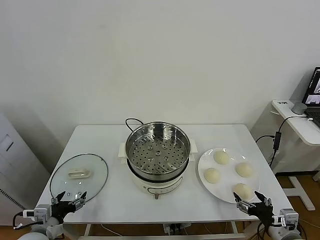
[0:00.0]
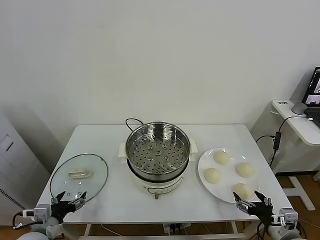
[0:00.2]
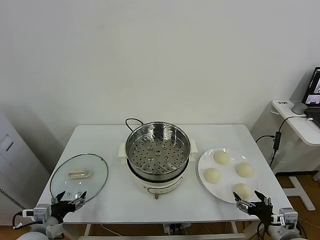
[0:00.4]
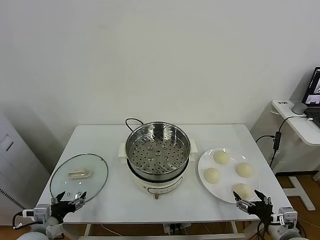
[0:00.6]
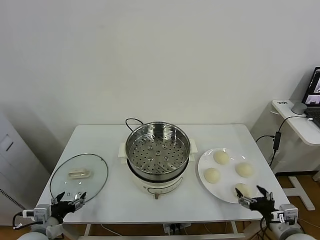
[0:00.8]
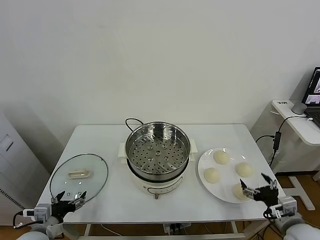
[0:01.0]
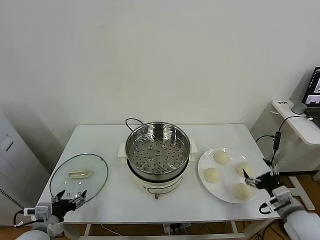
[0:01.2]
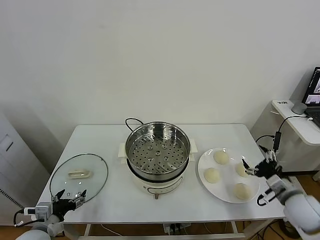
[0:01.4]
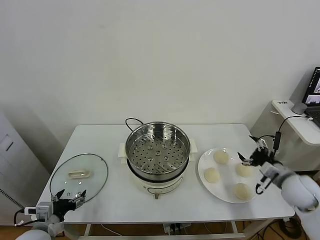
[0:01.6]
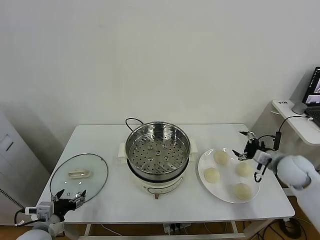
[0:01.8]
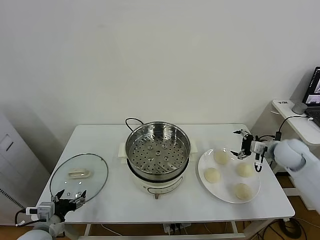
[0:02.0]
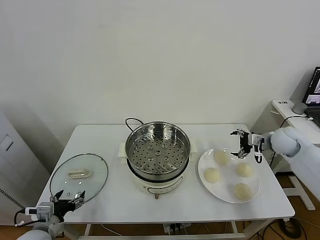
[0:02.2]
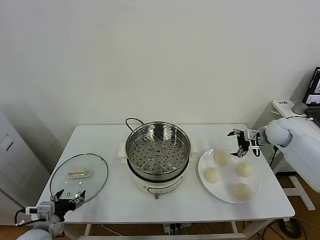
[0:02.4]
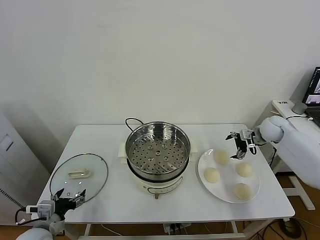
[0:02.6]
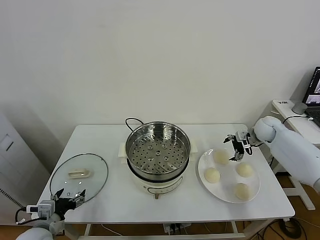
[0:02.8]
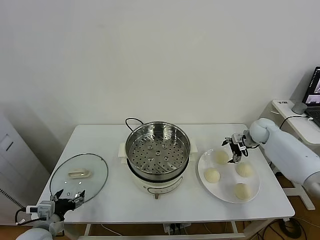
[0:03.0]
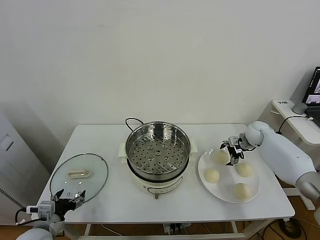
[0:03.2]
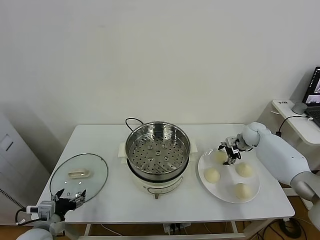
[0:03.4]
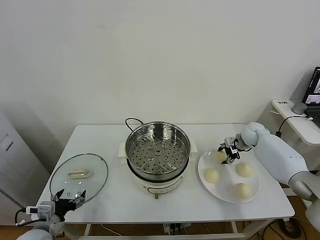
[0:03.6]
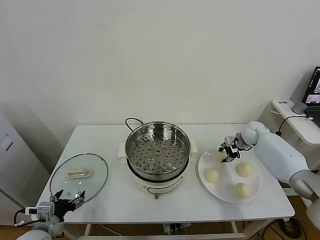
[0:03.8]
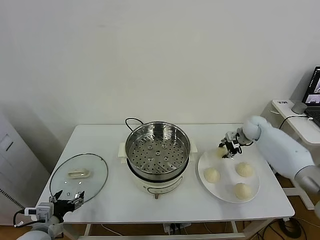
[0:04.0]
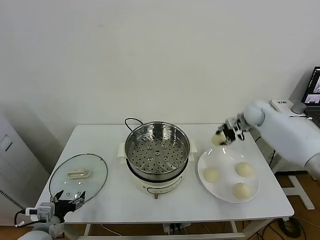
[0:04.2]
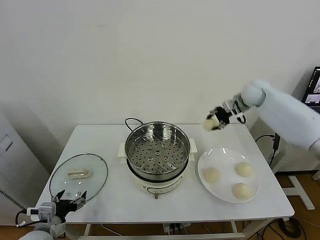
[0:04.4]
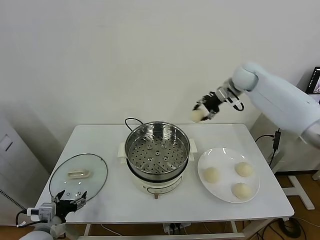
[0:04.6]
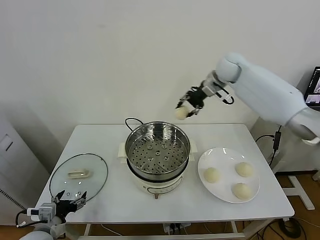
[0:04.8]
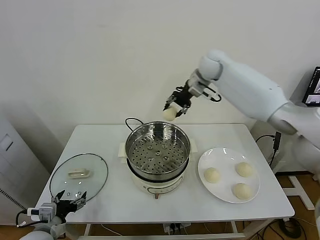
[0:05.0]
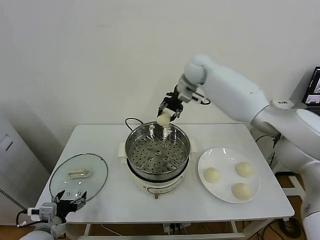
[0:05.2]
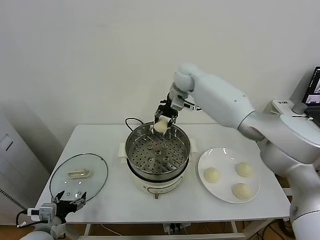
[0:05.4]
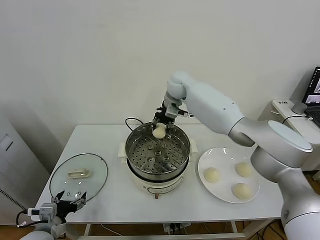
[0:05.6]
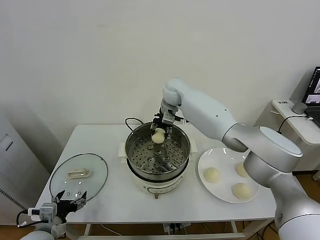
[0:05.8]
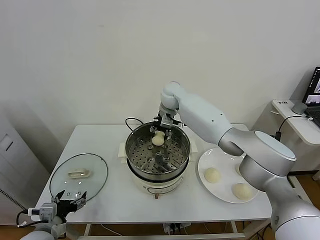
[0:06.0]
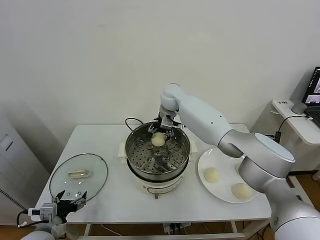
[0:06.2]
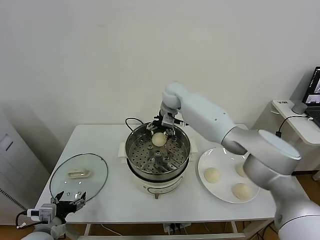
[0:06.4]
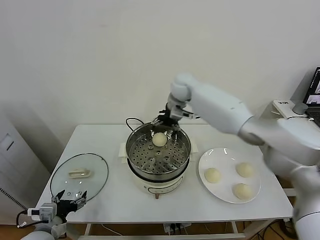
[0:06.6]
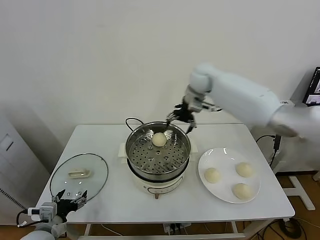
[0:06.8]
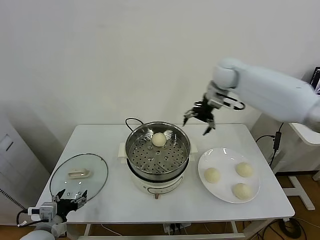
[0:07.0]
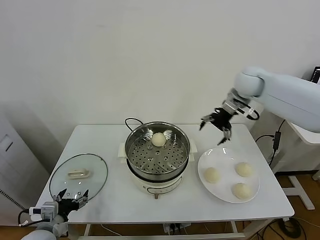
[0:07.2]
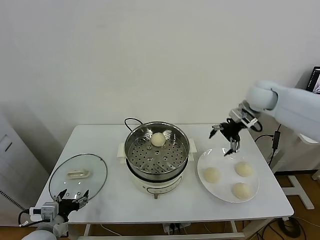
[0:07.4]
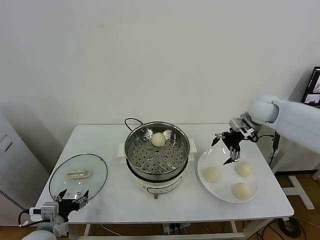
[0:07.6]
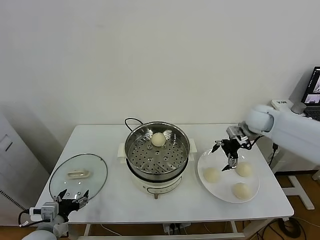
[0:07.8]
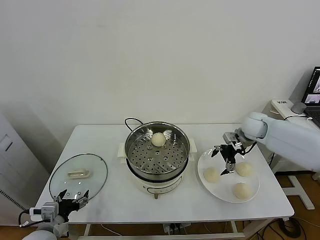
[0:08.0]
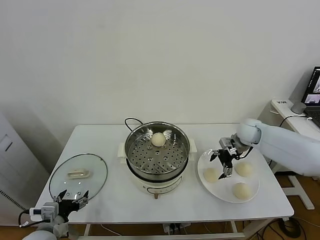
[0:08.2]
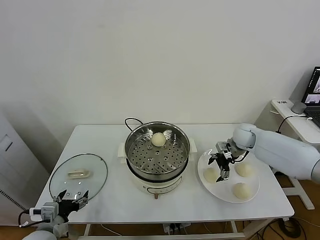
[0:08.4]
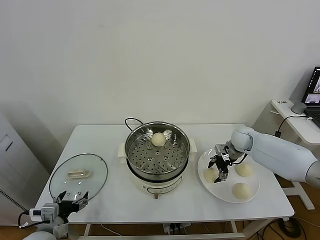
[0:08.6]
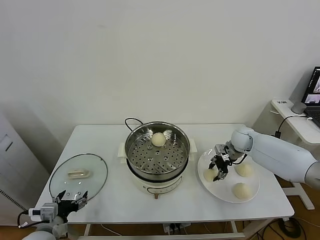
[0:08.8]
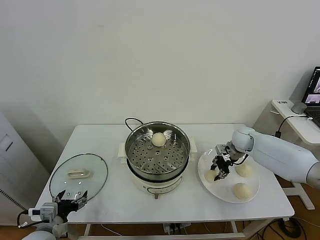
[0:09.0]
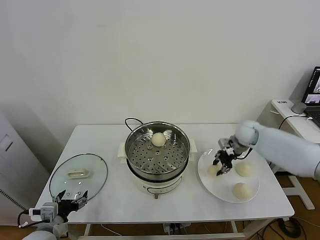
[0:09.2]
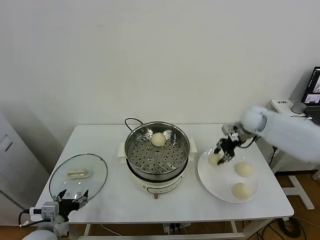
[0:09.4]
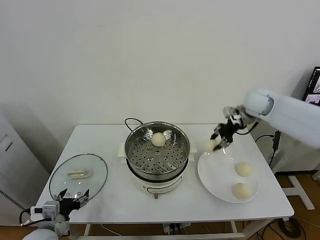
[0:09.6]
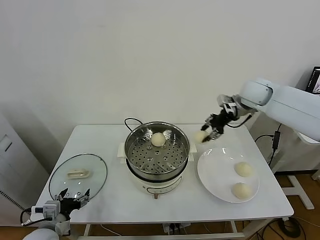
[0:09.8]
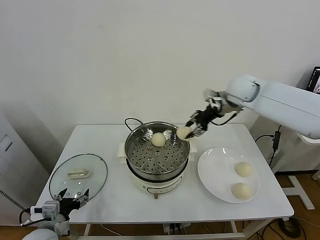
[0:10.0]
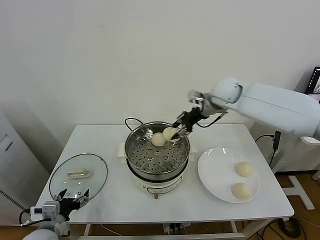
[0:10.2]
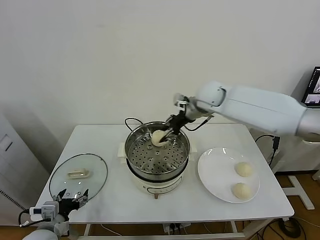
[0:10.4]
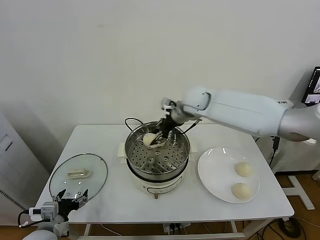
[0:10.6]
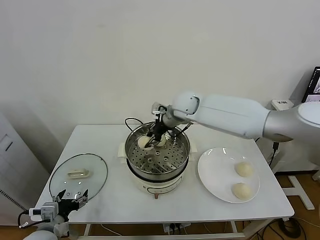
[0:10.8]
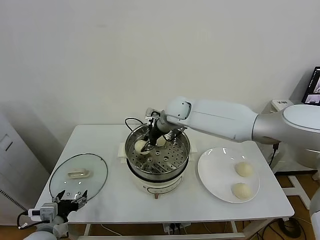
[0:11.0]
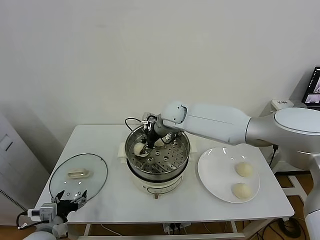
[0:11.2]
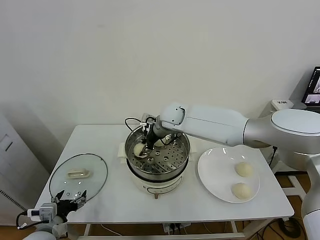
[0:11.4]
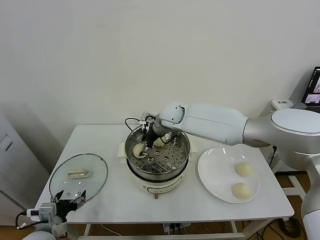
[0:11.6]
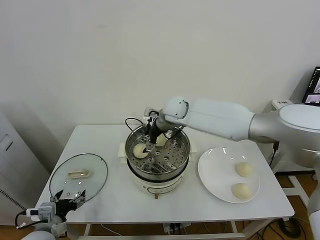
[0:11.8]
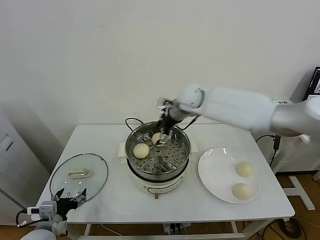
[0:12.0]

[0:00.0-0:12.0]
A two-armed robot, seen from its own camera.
Task of the whole recording: take steamed baozi put them in steamer.
Step, 0.0 to 3.6 s: Grasp the baozi in the plate with right gripper.
Step, 3.8 to 6.4 s: Place the baozi on the steamer with right gripper.
Step, 6.6 to 8.8 s: Grasp the baozi in the plate with right gripper.
Step, 9.0 to 11.8 s: Place the baozi on the steamer with right gripper.
1.6 to 3.0 s: The right gripper shifts some 20 cm forward.
3.0 to 4.4 s: The right gripper is displaced upward and to the left by roughly 25 cm, and closes.
4.4 to 6.0 s: The right gripper travels to the left by some 25 cm.
6.0 to 7.6 s: The right gripper goes approximately 30 cm to the right, and opens.
7.6 to 9.0 s: The right gripper goes approximately 15 cm downward, and closes up.
9.0 to 10.4 s: The right gripper heads to the left and upward, covering some 25 cm.
10.4 to 12.0 s: The right gripper reaches about 10 cm to the left, then returns, and opens its fingers.

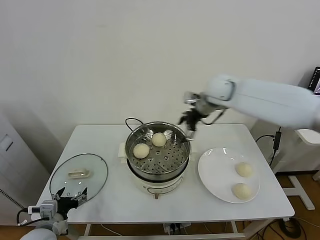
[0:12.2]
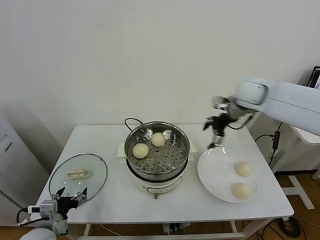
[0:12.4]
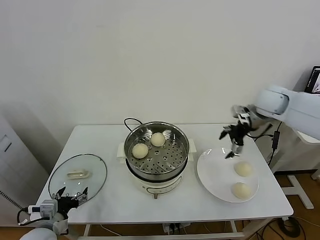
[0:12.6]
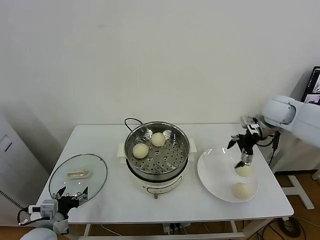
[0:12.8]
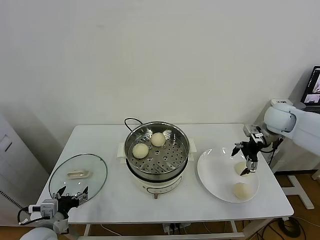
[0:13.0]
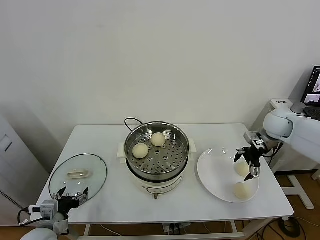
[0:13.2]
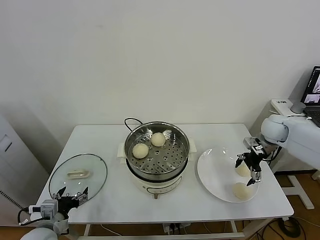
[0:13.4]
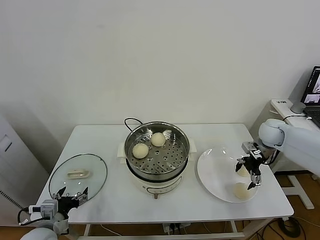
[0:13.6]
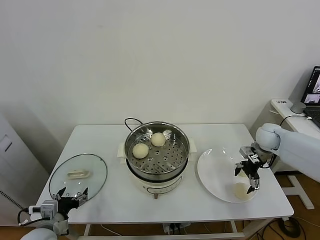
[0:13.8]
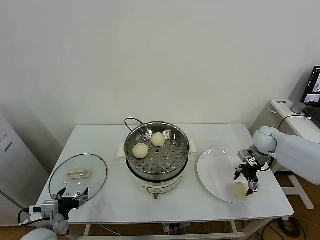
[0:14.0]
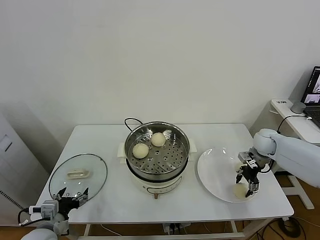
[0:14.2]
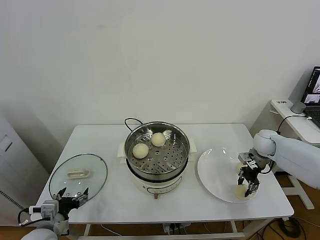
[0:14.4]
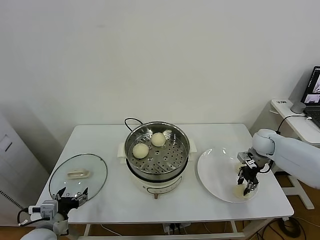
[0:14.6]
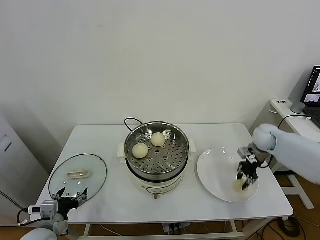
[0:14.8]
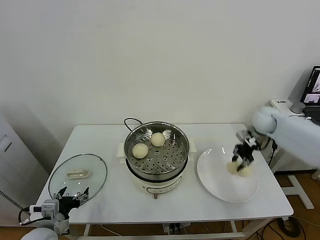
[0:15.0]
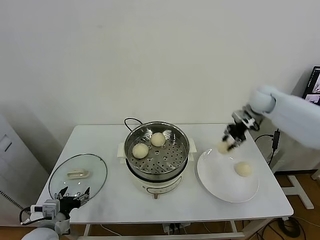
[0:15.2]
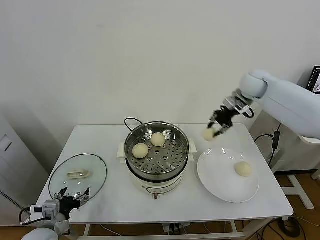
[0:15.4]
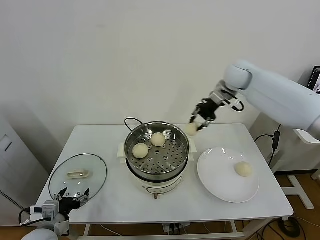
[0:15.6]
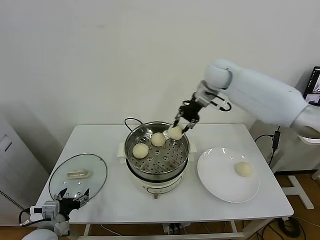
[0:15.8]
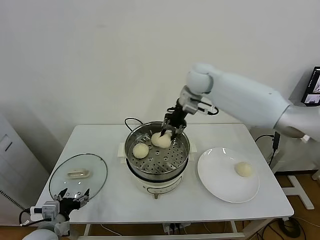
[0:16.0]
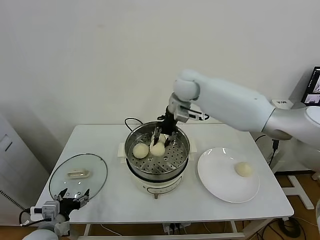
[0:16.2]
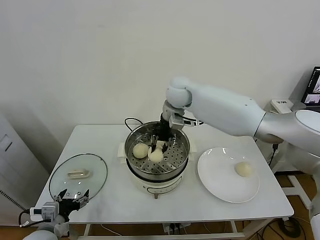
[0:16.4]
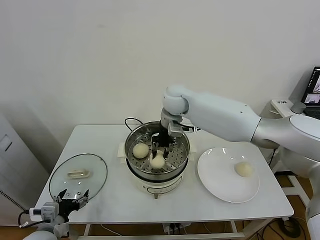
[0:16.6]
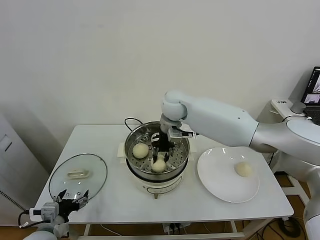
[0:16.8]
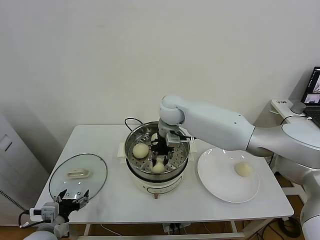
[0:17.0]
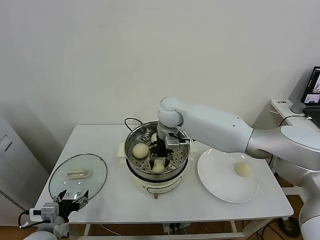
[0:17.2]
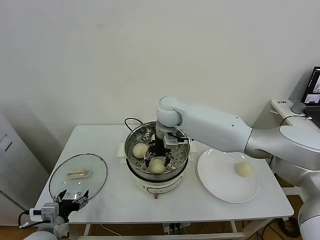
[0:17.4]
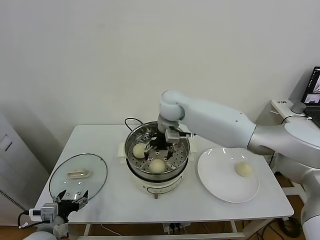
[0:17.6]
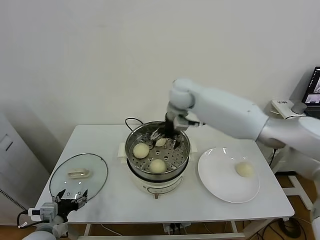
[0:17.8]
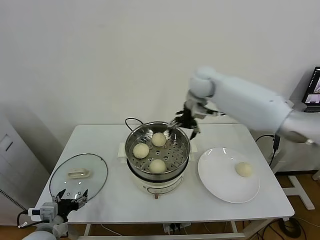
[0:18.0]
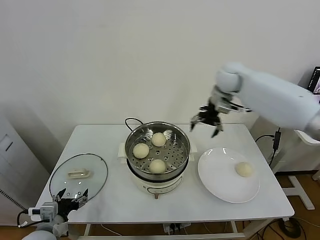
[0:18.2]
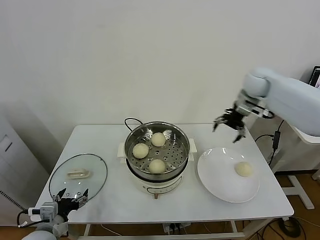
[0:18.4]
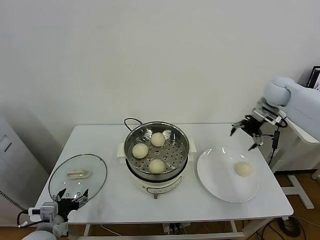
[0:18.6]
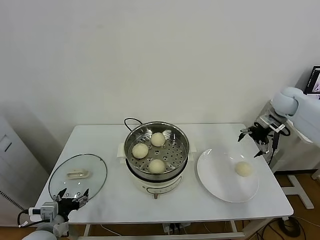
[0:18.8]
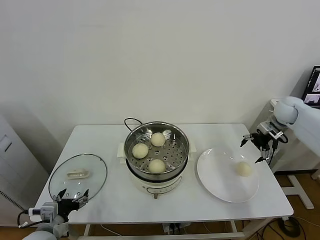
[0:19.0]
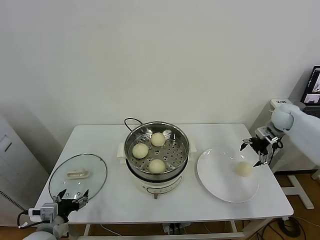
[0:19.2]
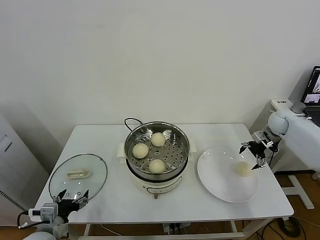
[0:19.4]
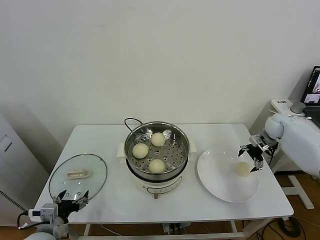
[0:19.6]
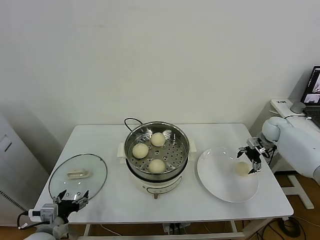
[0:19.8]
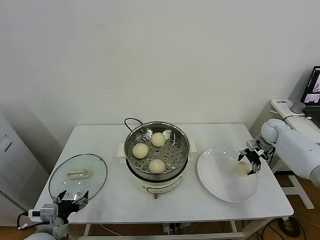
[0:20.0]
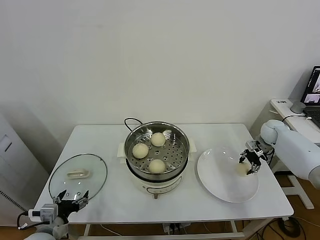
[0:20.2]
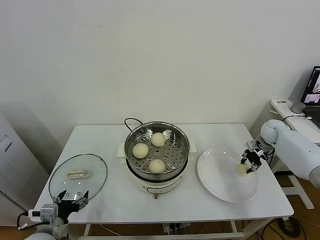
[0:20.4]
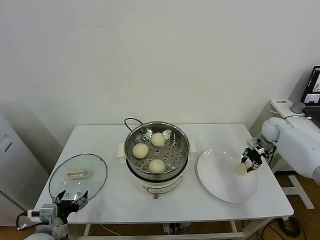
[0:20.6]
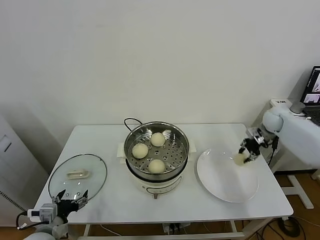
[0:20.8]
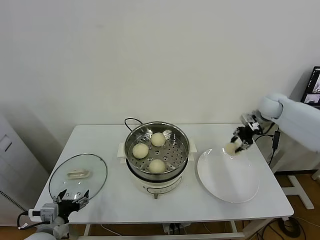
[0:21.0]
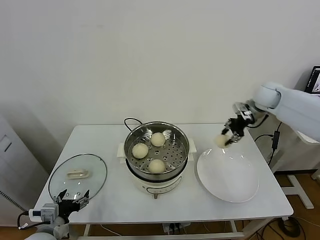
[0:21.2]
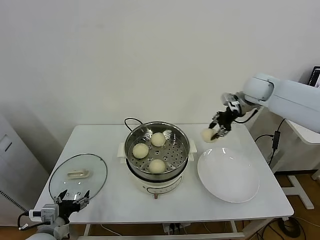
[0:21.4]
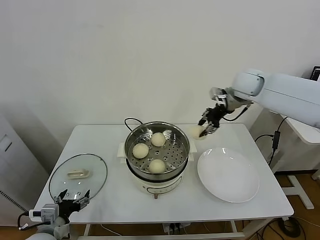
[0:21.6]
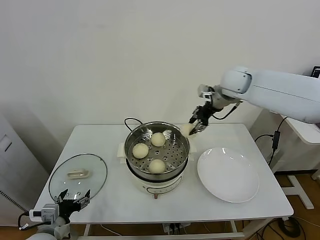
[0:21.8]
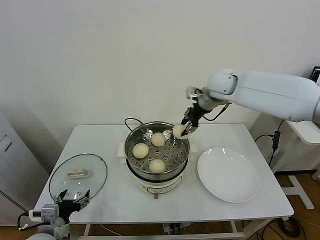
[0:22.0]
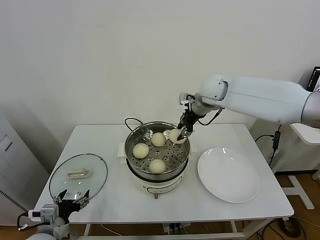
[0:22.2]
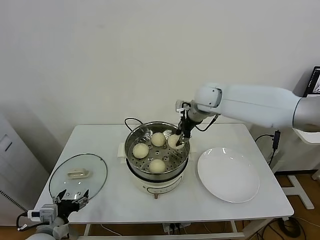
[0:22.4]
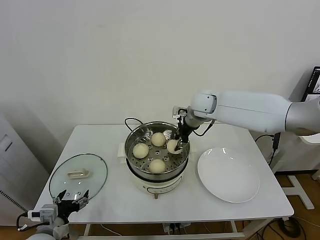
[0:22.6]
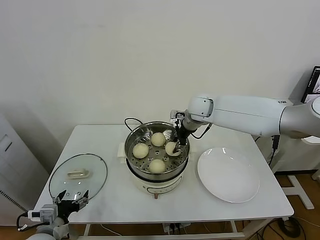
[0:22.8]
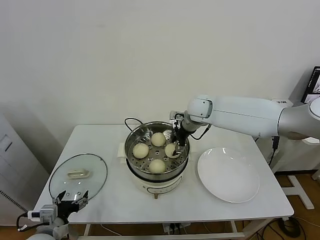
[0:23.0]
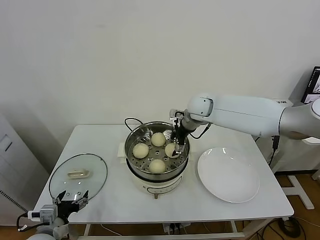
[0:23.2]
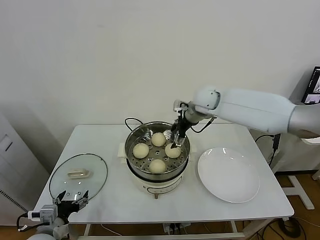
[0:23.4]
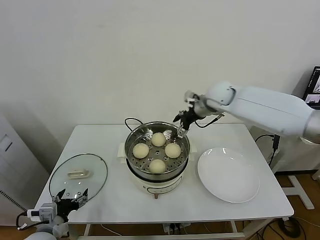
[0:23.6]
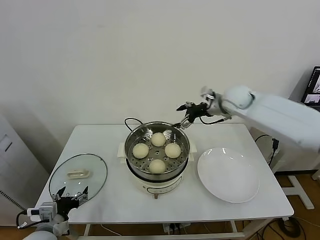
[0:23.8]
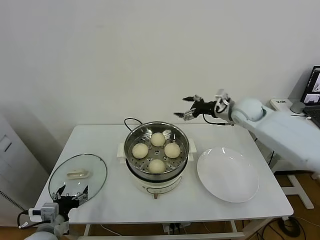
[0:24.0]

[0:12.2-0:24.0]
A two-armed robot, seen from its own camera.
Task of the whole recording: take steamed baozi put them in steamer.
Step, 12.2 to 14.2 s: Grasp the baozi in the plate with right gripper.
Step, 14.4 to 17.6 s: Place the baozi on the steamer with right gripper.
Step, 17.8 to 20.4 s: Grasp the baozi in the plate with right gripper.
Step, 20.6 to 23.2 s: Place the baozi on the steamer with right gripper.
12.2 to 13.6 s: The right gripper shifts some 25 cm to the right and downward.
13.6 to 15.2 s: The right gripper travels upward, forward and to the left by roughly 15 cm, and closes up.
15.2 to 16.6 s: The right gripper is displaced to the left by roughly 30 cm.
16.6 to 18.2 s: The right gripper heads to the right, covering approximately 20 cm, and opens.
18.2 to 19.6 s: The right gripper goes about 30 cm to the right and downward.
19.6 to 21.0 s: The right gripper heads upward and to the left, covering some 15 cm, and closes its fingers.
21.0 to 22.6 s: The right gripper travels to the left by some 25 cm.
22.6 to 24.0 s: The right gripper goes about 15 cm to the right, and opens up.
